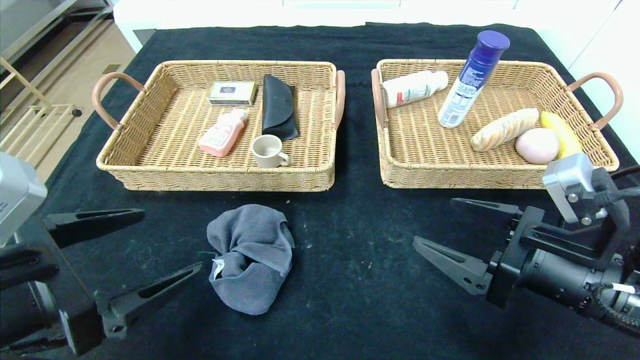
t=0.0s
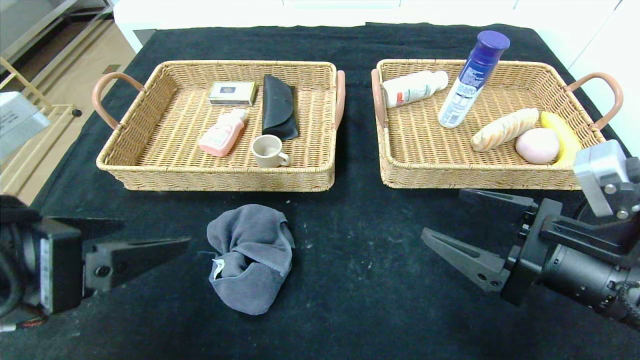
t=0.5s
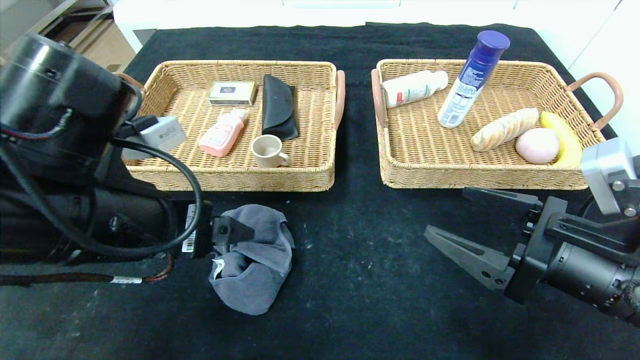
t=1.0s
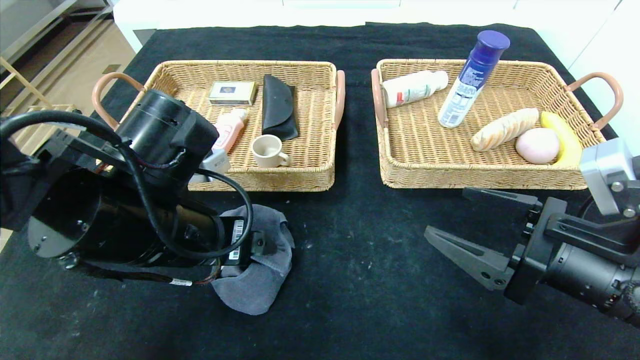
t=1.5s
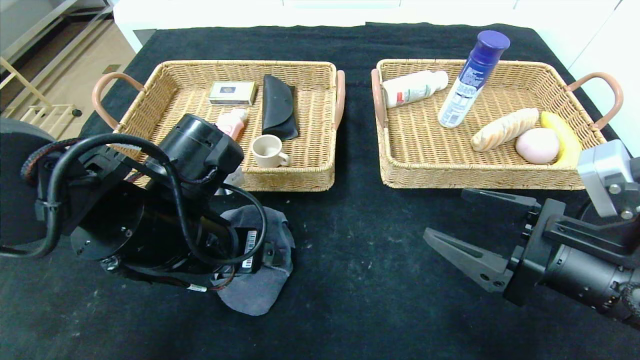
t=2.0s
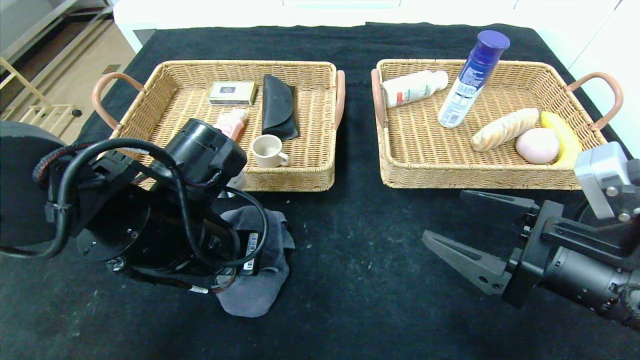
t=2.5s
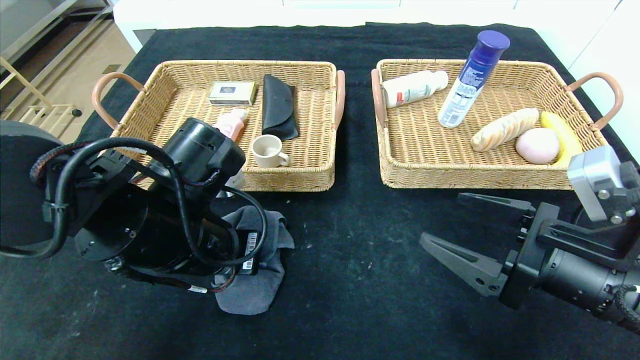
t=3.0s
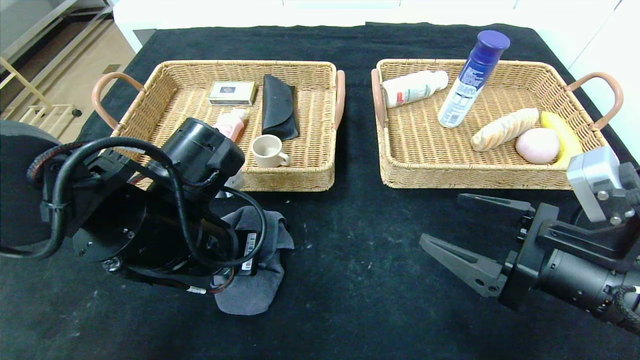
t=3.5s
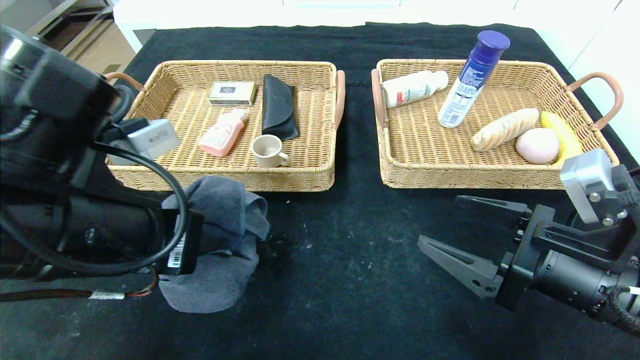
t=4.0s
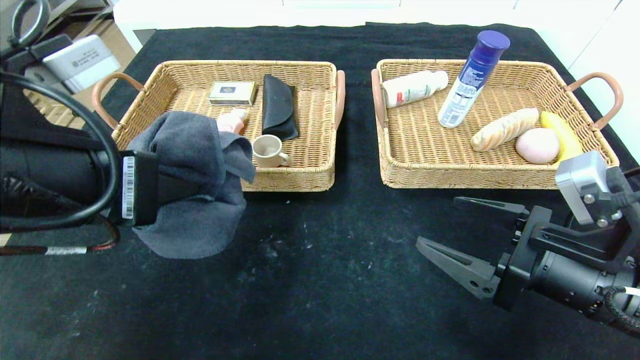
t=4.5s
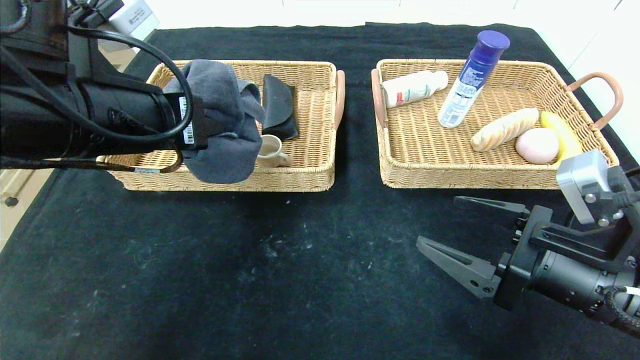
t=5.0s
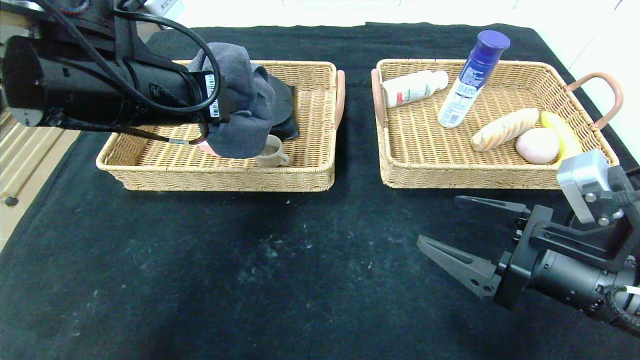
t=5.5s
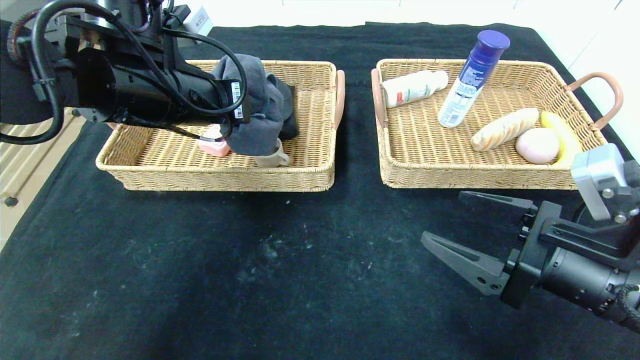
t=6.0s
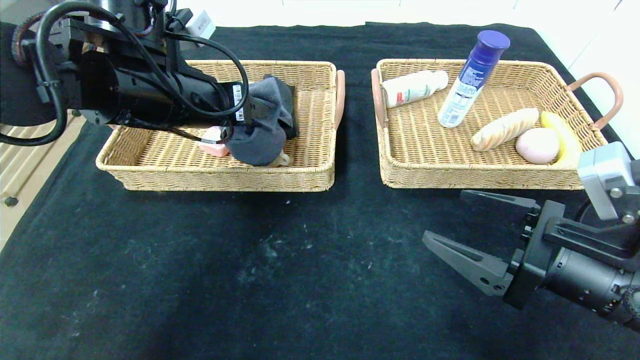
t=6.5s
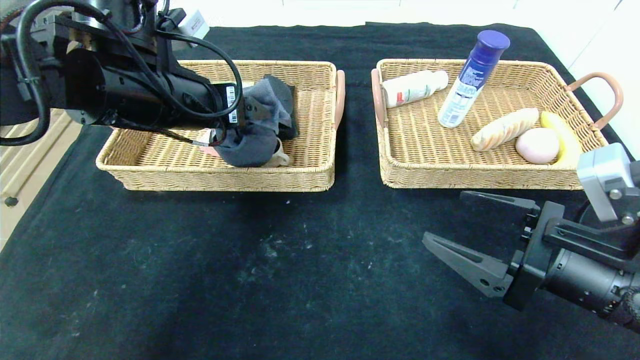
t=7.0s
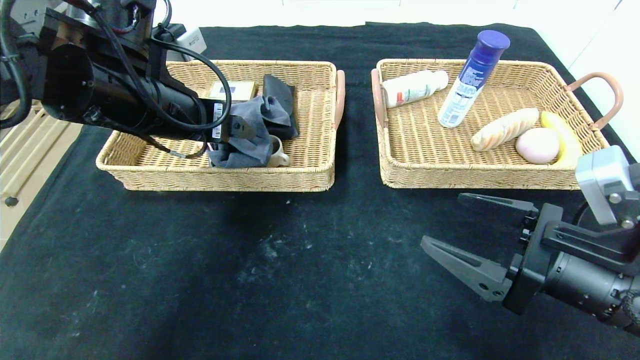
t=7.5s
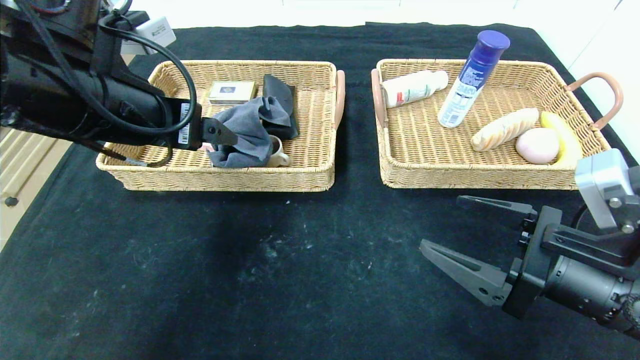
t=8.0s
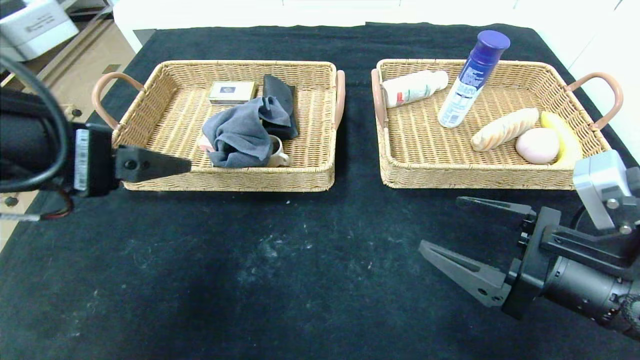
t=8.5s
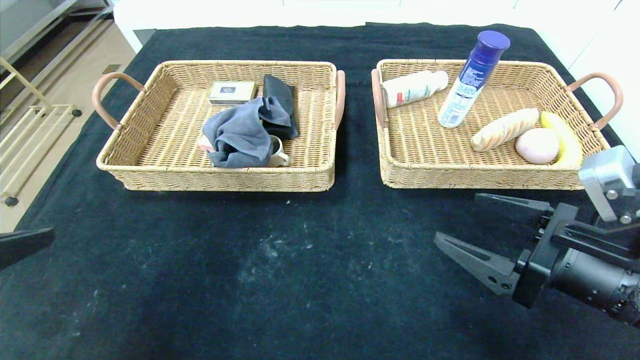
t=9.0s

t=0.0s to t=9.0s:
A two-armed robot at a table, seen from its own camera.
Step, t=0.0s to t=7.5s: Grasp the gray towel and put it in the left basket.
t=0.0s to t=2.0s: The left gripper goes approximately 15 cm forward and to the right.
t=2.0s to t=4.5s: The left gripper shifts approximately 10 cm upward and backward, and closes.
t=4.5s to t=7.0s: The left gripper travels forward by roughly 15 cm, and opens its fingers.
t=7.0s to t=9.0s: The left gripper goes about 25 cm backward.

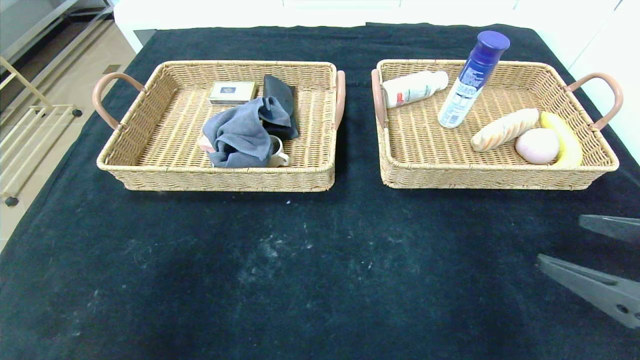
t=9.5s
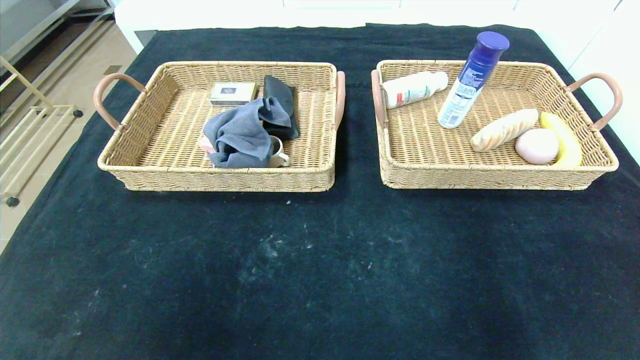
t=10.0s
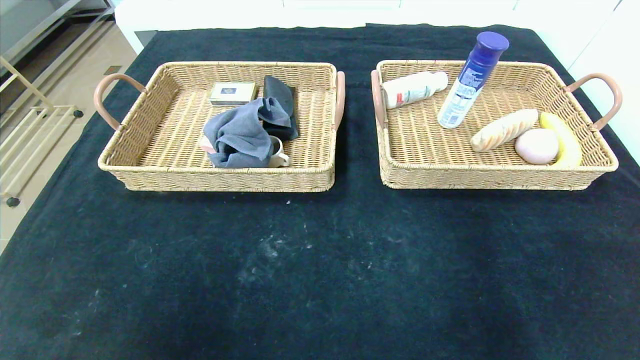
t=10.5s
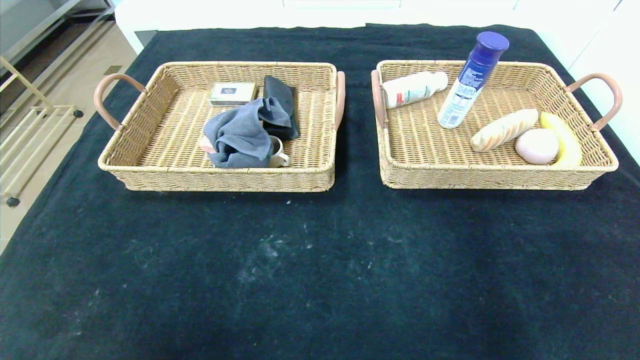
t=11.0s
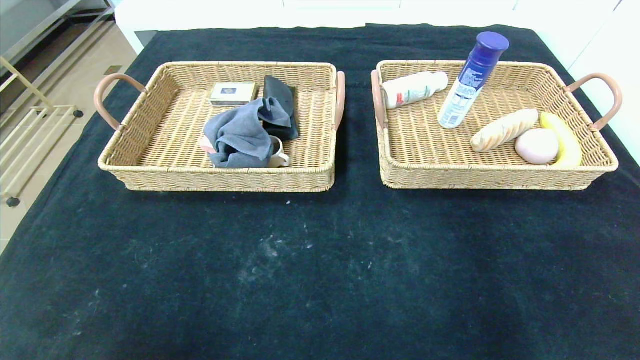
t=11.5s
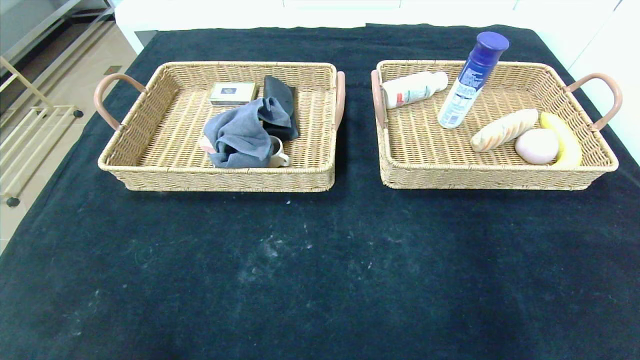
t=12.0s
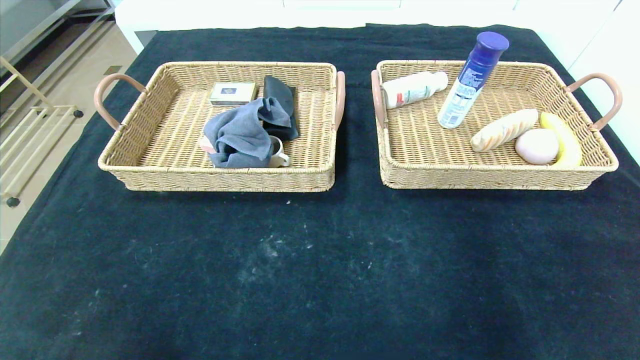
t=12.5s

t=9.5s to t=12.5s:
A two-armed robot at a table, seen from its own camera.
t=9.5s to t=11.0s: The right gripper travels backward by approximately 20 cm. The left gripper goes some 10 cm backward and downward.
